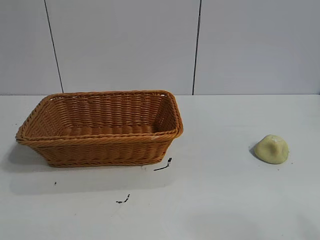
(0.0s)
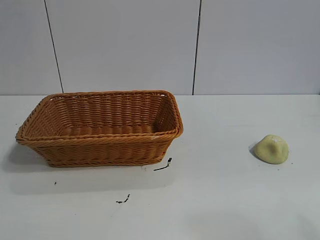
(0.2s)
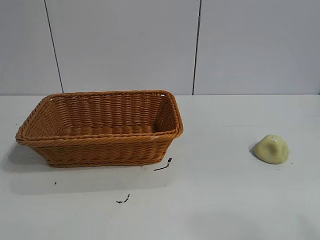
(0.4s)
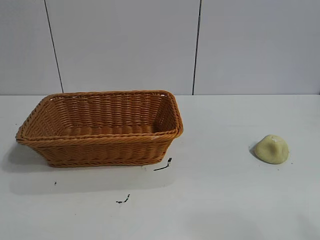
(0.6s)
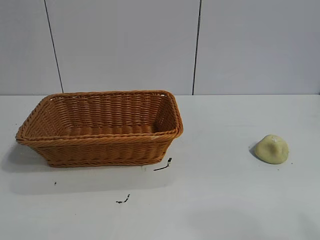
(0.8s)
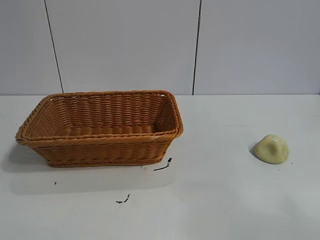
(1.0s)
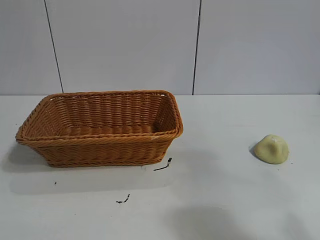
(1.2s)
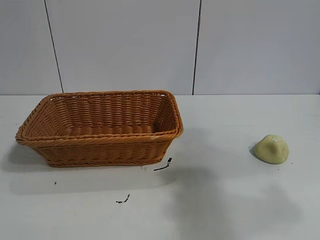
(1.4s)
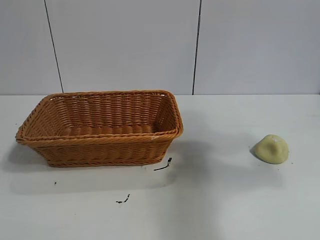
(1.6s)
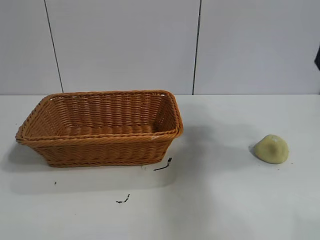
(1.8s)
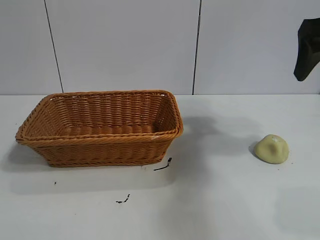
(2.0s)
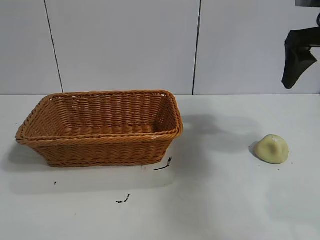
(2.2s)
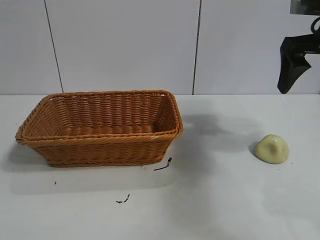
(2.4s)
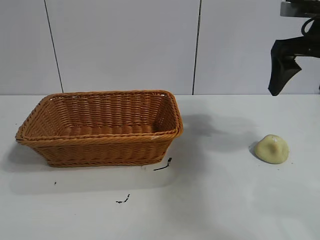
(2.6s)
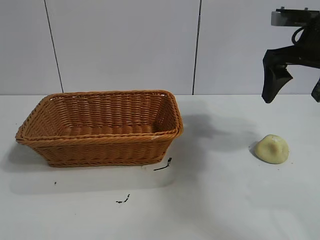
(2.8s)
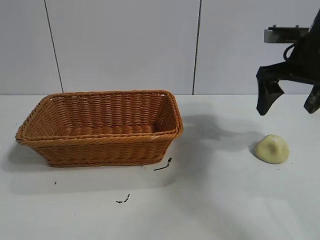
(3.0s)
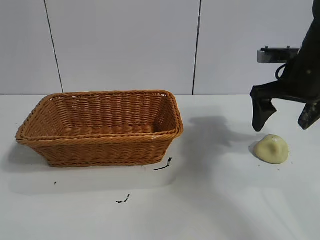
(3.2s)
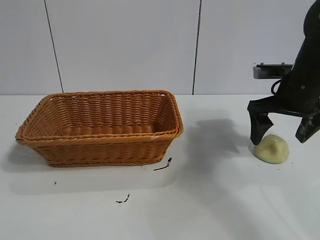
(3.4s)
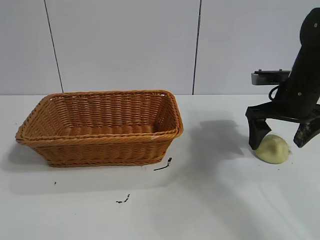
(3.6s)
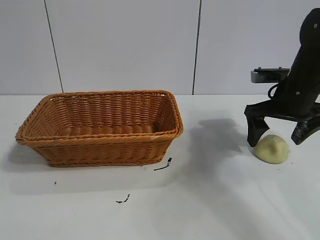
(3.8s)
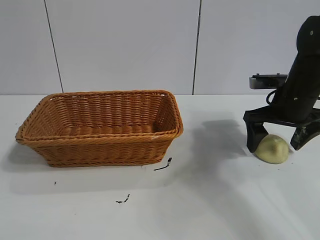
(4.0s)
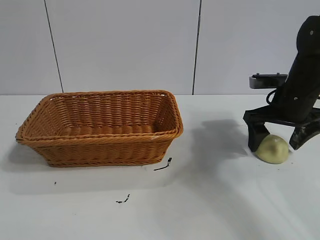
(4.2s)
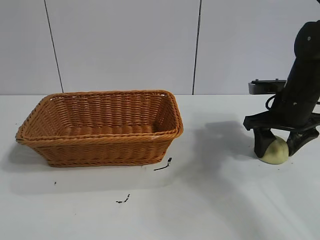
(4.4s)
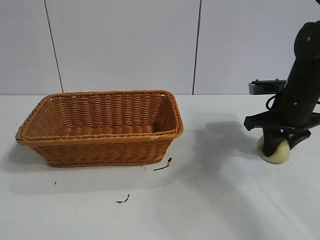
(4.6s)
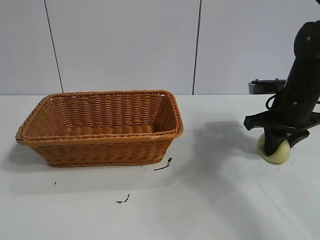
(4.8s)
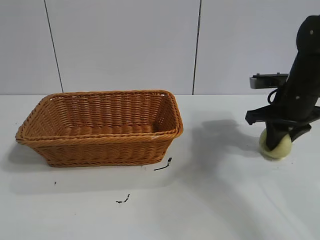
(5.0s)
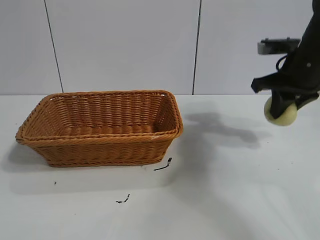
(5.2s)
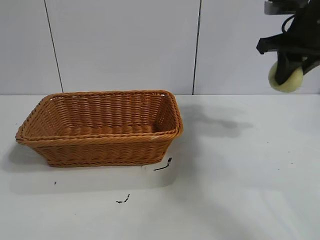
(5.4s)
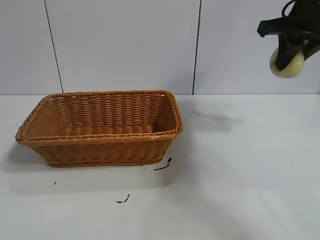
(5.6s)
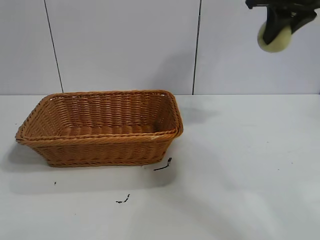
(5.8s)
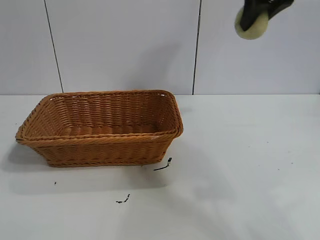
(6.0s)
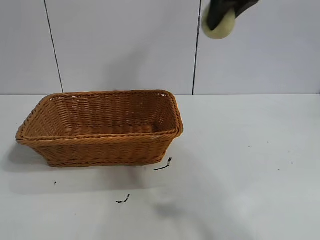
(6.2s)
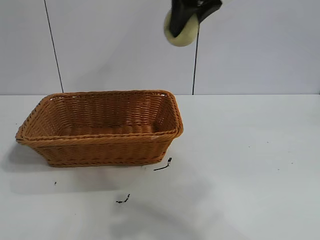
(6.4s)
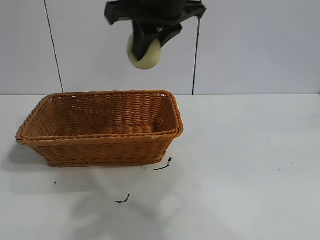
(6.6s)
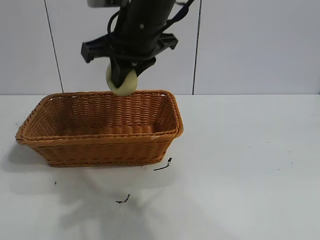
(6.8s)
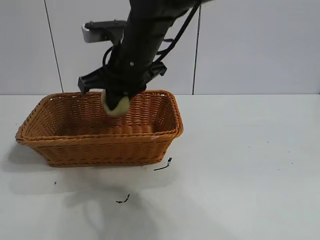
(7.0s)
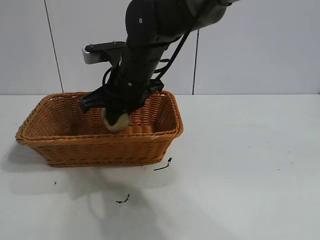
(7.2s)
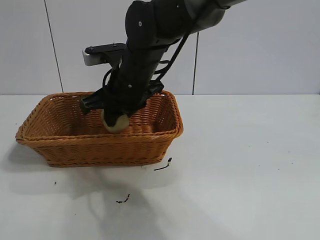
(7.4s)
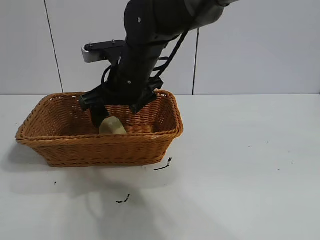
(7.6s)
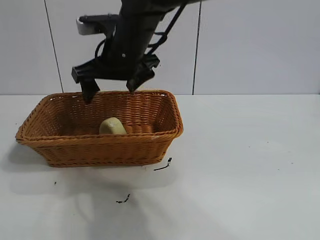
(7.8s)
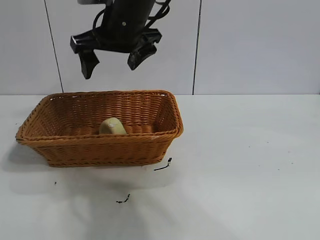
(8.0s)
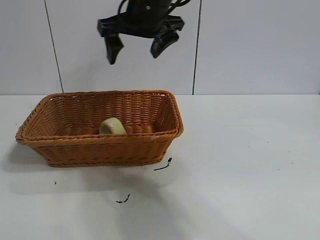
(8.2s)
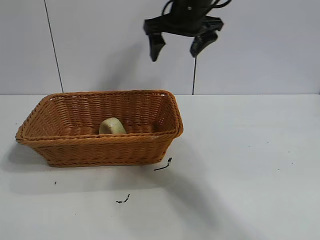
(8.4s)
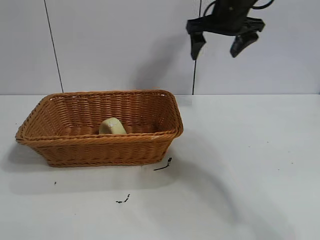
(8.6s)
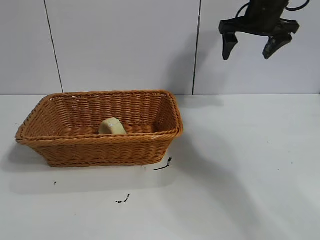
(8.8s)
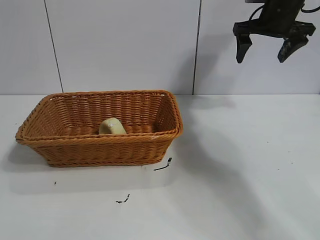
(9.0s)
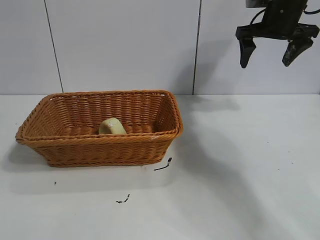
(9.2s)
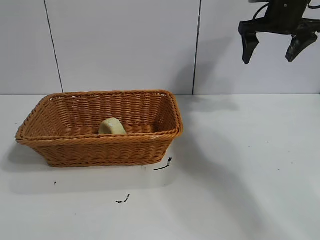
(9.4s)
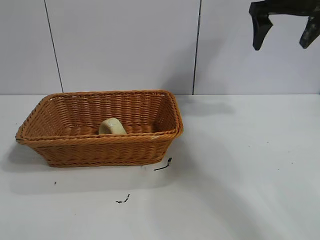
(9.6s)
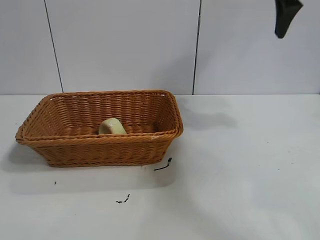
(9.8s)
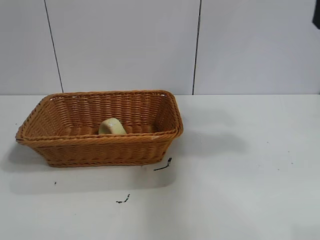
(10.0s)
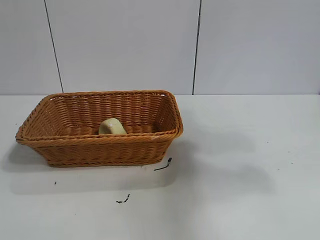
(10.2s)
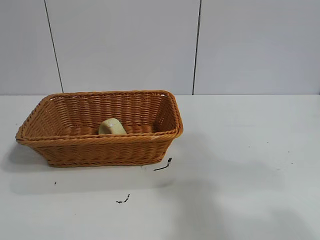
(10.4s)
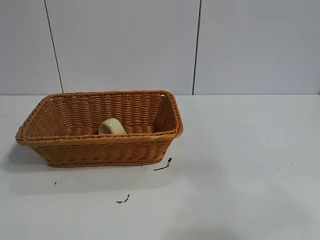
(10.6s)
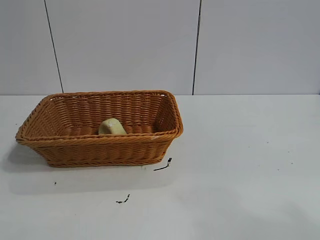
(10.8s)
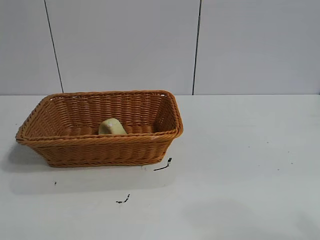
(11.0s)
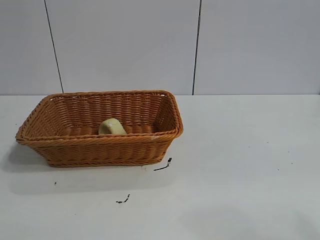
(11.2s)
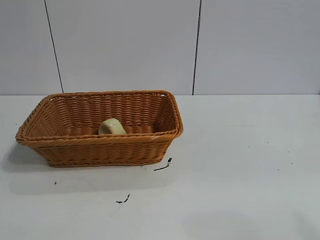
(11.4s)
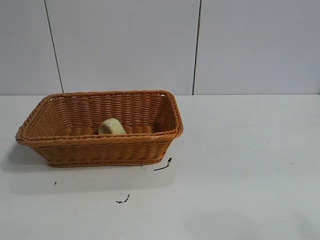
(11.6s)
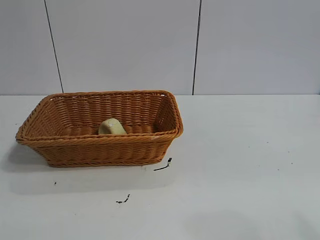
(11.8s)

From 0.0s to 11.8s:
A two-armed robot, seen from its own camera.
Task of the whole recording: pick up the egg yolk pastry and put it into the basket.
Step, from 0.8s to 4.6s: Grasp egg yolk pastry with right gripper.
Step, from 4.8s to 7.6s: Place the egg yolk pastry in the basket with right gripper.

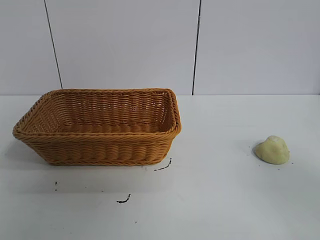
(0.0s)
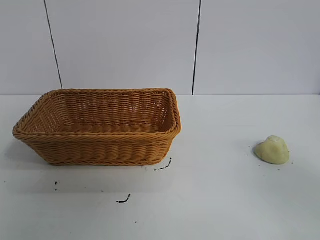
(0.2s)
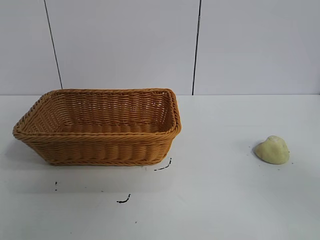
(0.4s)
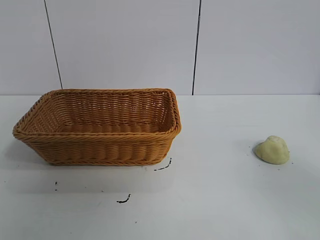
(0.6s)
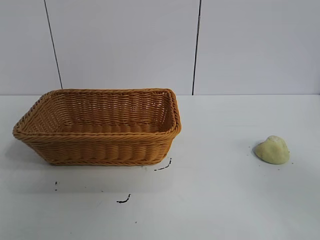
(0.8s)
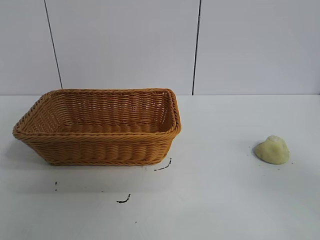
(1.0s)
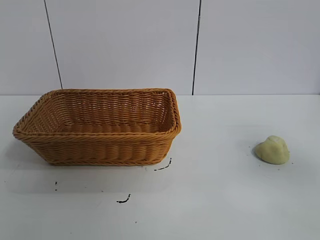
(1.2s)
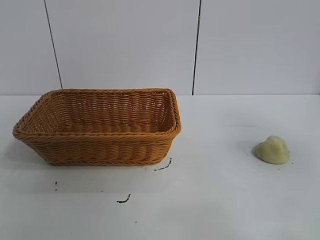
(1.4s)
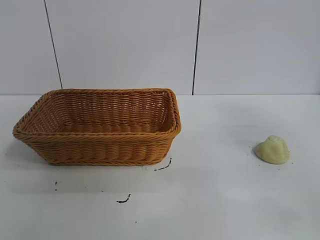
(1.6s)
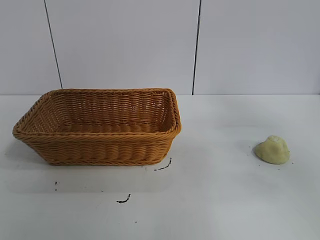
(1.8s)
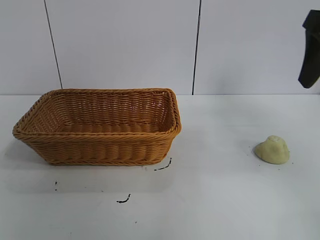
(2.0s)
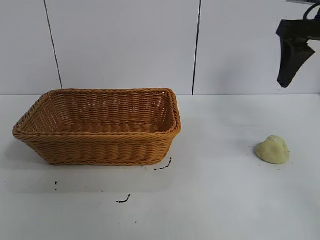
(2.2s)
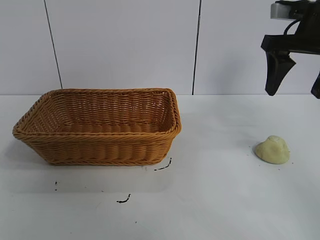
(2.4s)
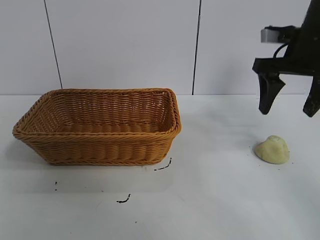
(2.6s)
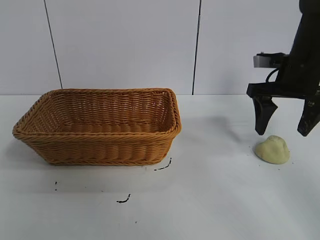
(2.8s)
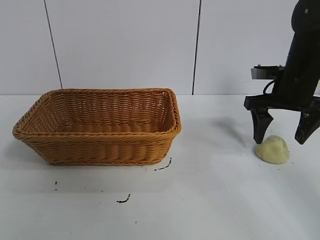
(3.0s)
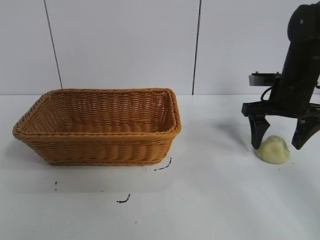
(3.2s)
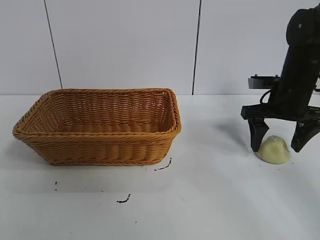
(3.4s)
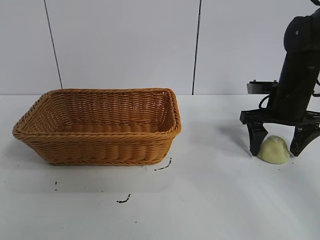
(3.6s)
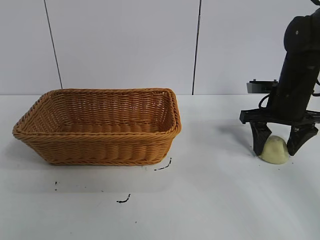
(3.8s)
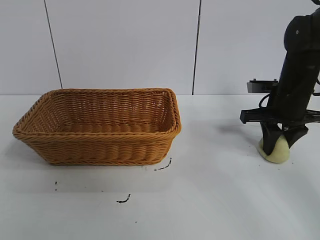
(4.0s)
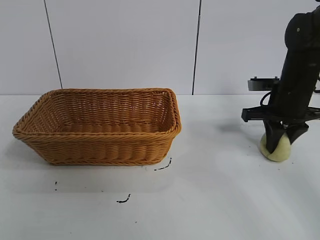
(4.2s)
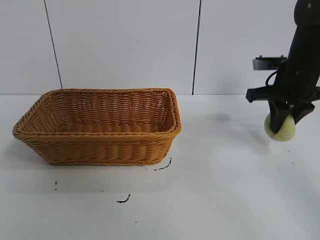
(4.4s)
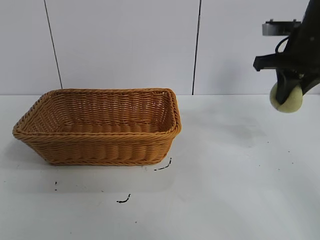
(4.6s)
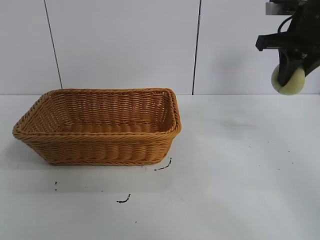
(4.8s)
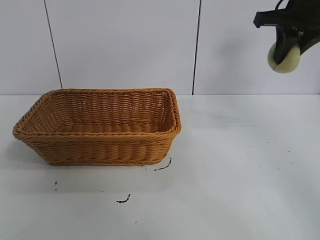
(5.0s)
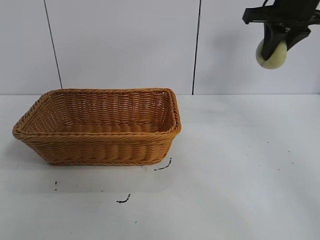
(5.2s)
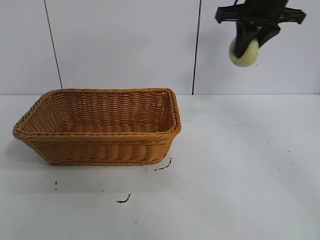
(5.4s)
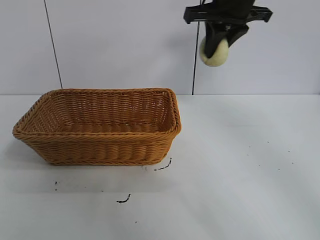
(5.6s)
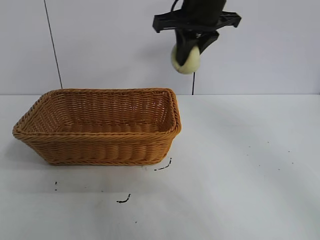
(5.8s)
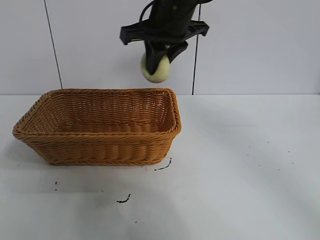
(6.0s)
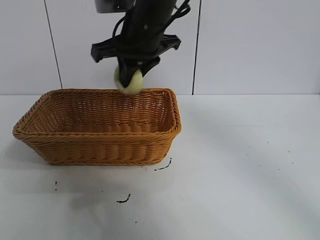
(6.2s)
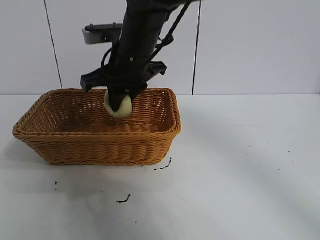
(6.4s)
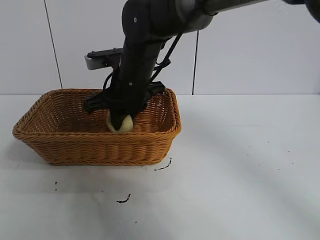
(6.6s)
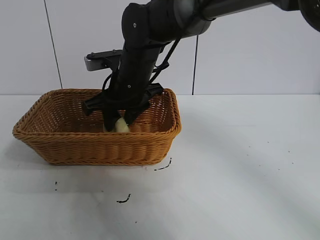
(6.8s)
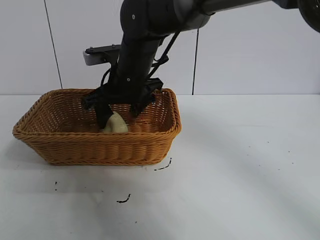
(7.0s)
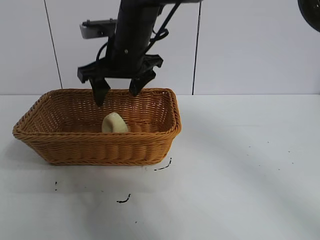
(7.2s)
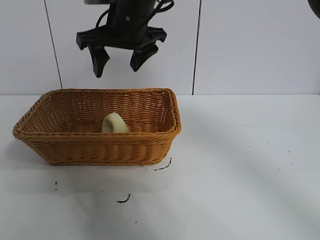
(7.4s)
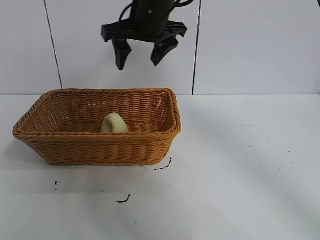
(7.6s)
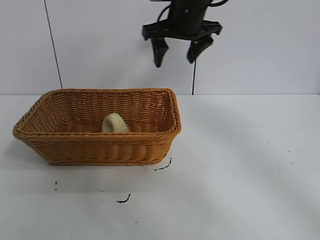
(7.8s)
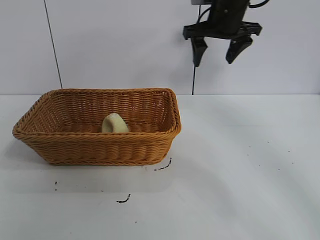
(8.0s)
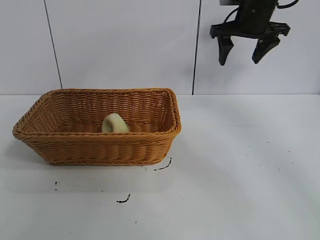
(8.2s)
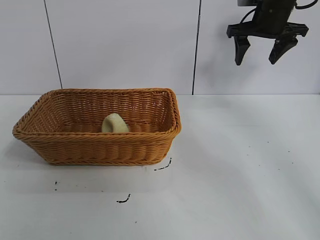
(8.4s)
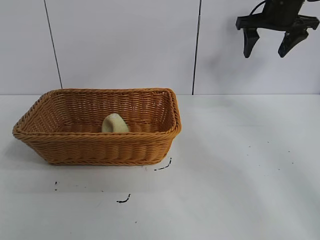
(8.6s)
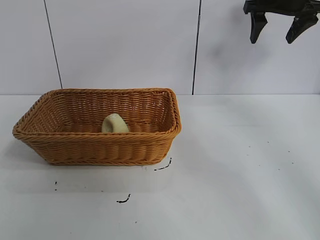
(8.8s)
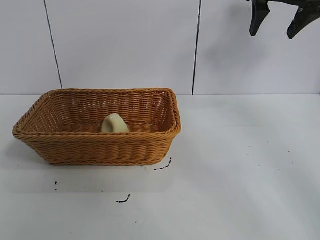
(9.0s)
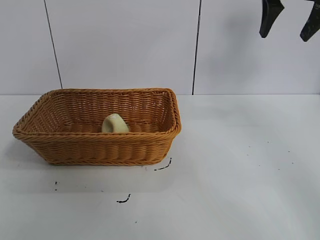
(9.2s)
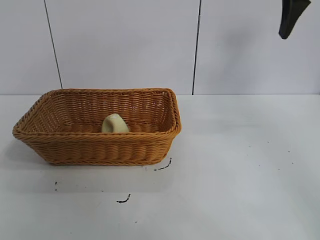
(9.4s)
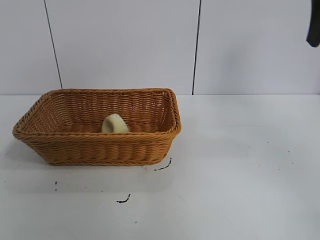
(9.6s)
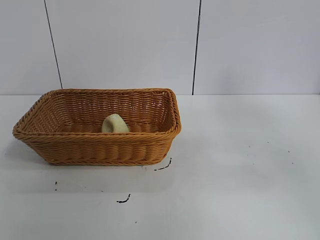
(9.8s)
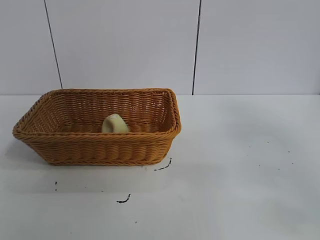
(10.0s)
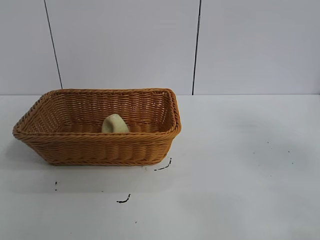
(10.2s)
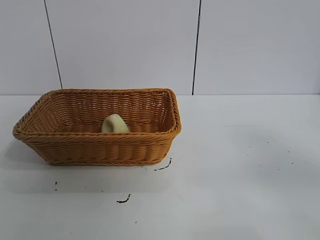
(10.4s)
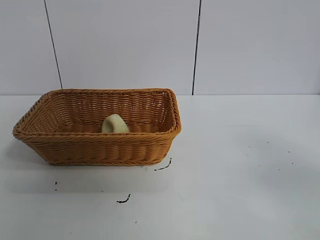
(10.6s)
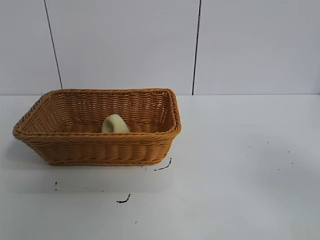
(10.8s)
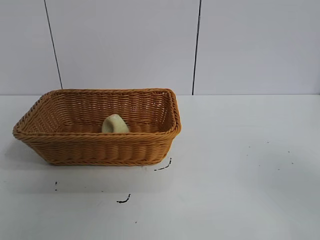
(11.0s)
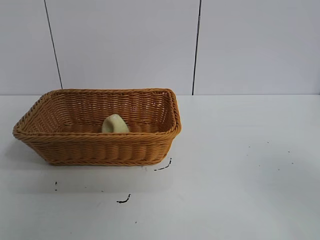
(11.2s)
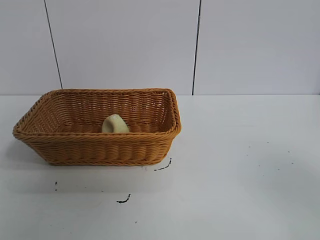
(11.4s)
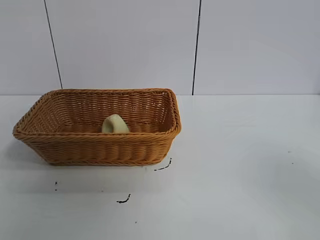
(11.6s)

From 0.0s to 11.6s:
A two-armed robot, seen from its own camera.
Task of the whole recording: pick up the egg yolk pastry and put it into the basket.
Step, from 1.0s to 3.8s: Grasp egg yolk pastry with right gripper.
Step, from 4.2s to 6.8s: Place the egg yolk pastry in the basket with right gripper.
